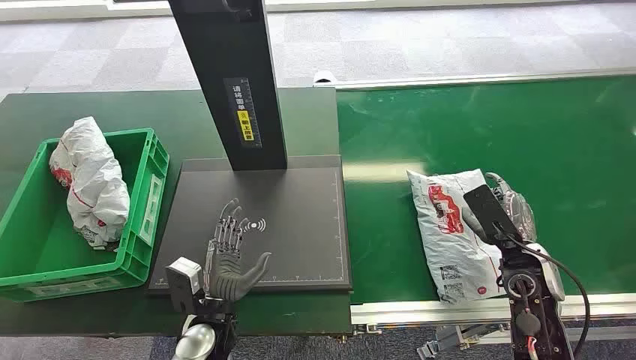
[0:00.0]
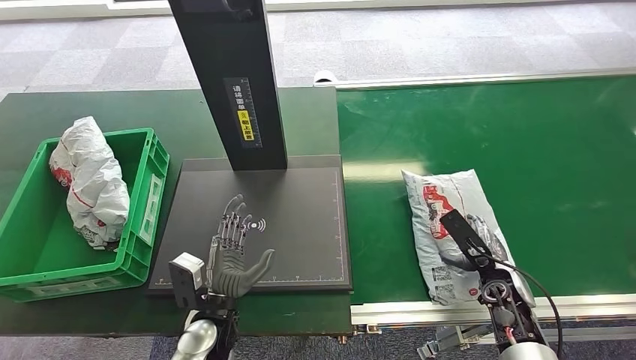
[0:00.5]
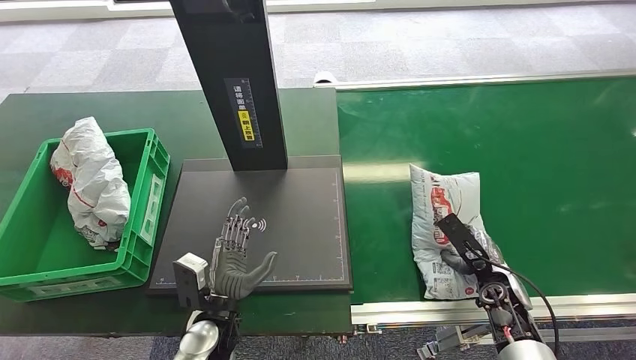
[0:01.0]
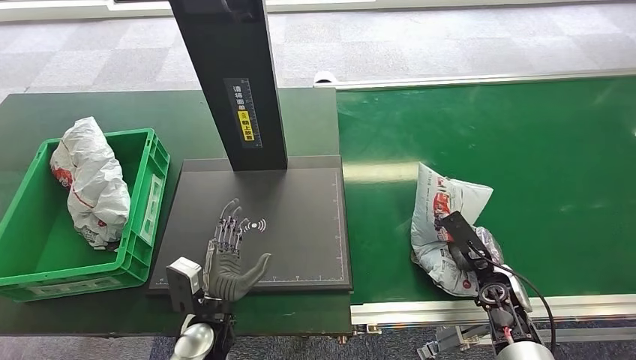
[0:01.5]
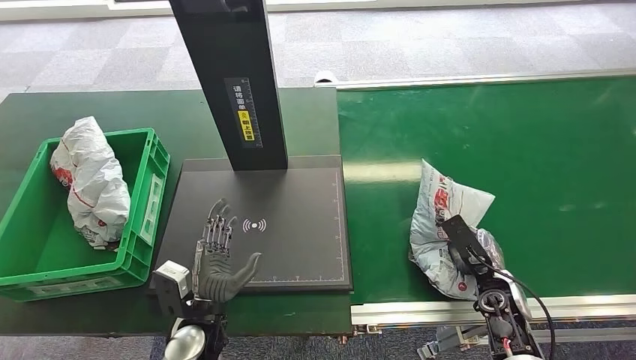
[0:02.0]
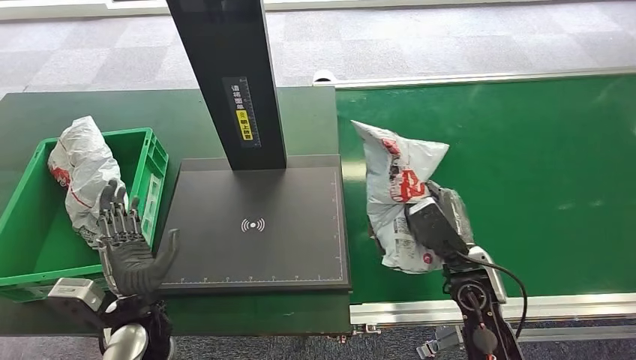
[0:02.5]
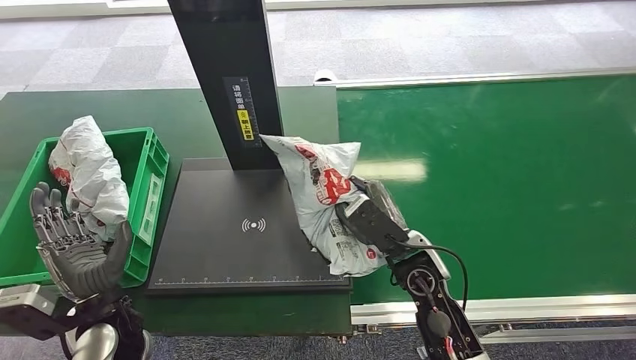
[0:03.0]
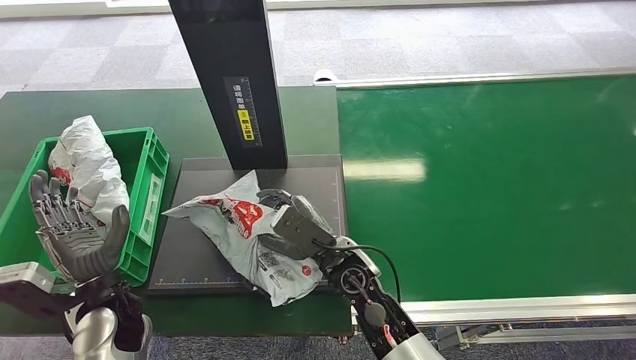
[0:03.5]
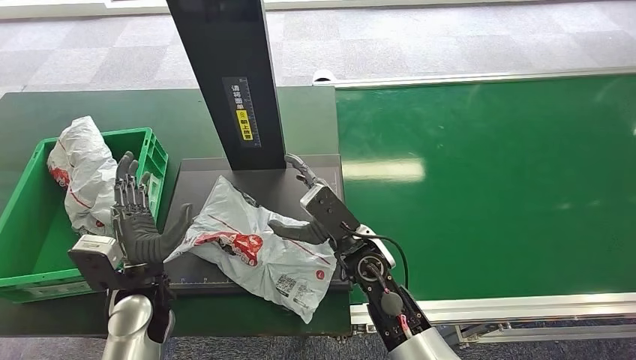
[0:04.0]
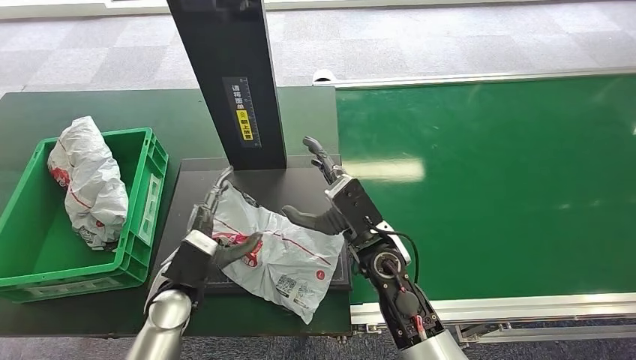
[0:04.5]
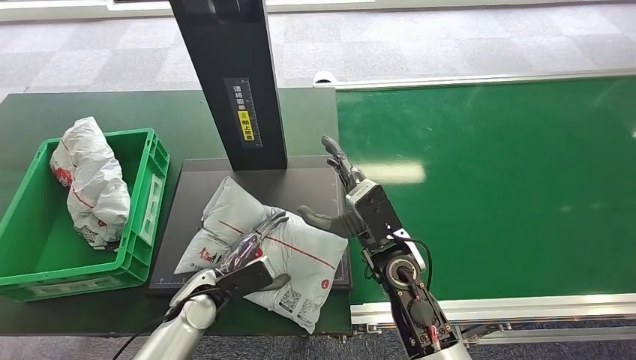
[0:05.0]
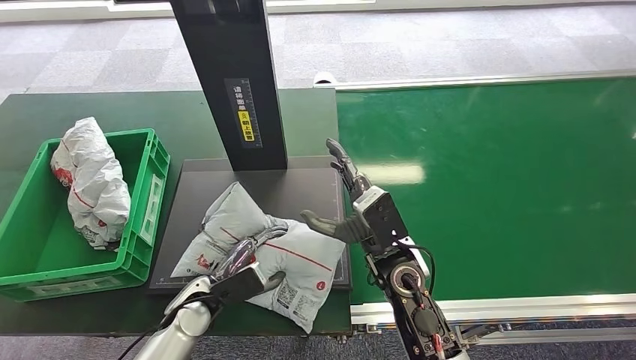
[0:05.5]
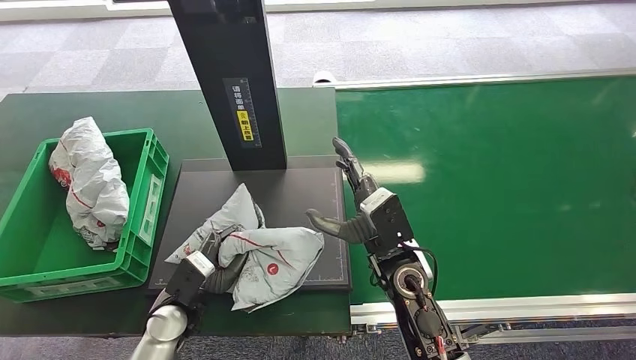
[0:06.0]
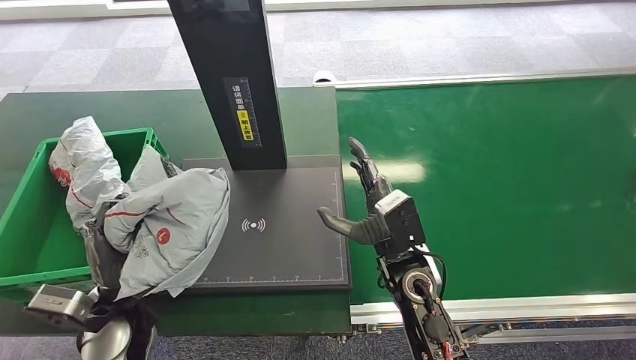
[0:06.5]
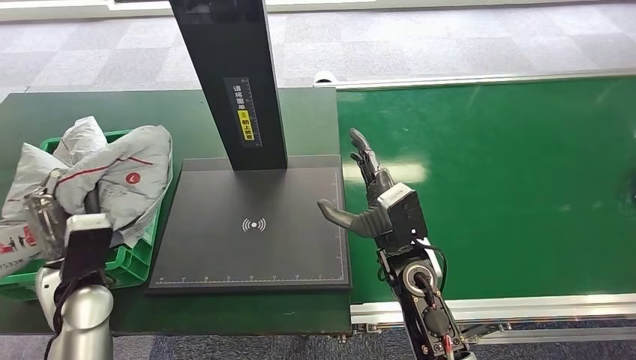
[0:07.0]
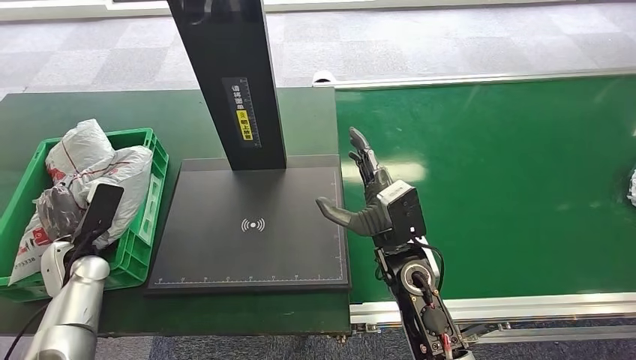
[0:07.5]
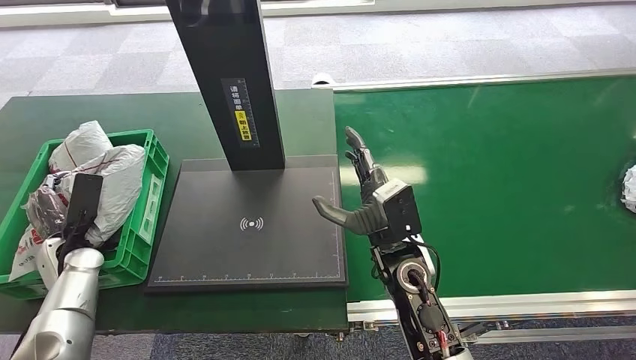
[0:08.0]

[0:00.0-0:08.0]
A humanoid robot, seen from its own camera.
Task of the whole recording: Weigh the package on the weighing device and place it in the left basket.
Step, 0:00.0 to 0:02.0: Pick up the package from the conveyor belt.
Step, 0:02.5 to 0:03.5: Place the package onto the inbound machine.
Step, 0:04.0 to 0:06.0: Pick up the package from the inbound machine.
Step, 0:06.5 to 0:08.0: Place the package into the parcel locker.
0:04.0 to 0:06.0: The left hand heads downward, covering about 5 cm.
